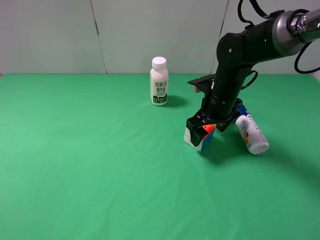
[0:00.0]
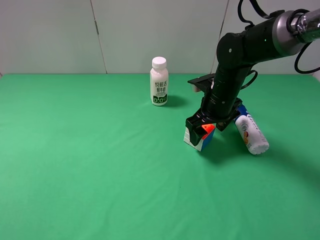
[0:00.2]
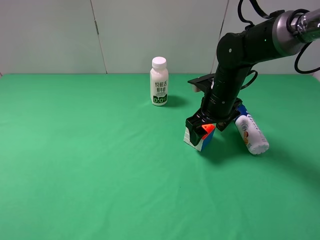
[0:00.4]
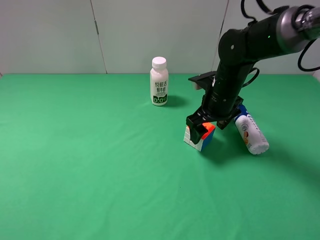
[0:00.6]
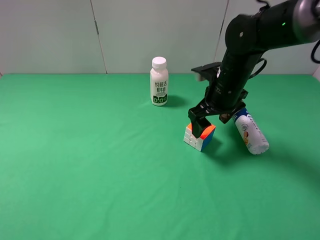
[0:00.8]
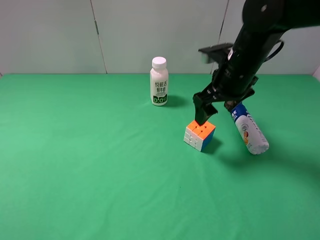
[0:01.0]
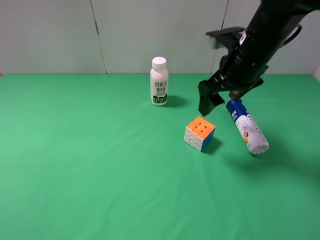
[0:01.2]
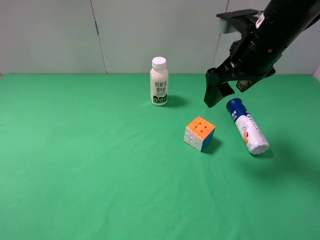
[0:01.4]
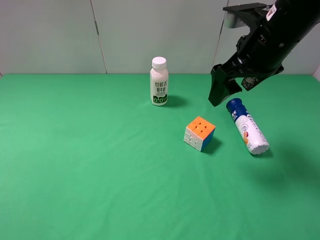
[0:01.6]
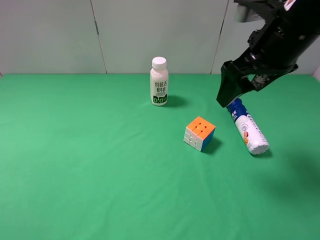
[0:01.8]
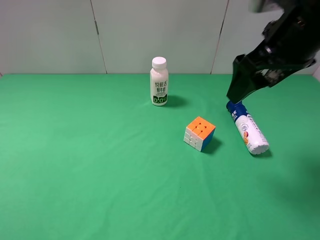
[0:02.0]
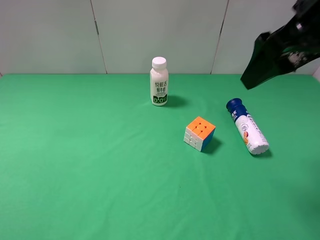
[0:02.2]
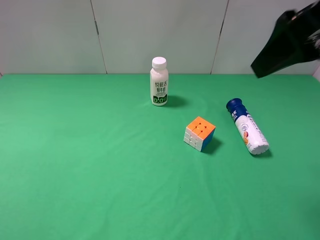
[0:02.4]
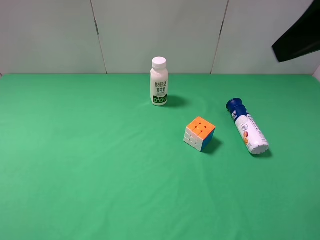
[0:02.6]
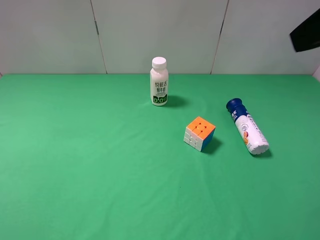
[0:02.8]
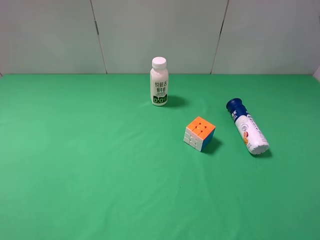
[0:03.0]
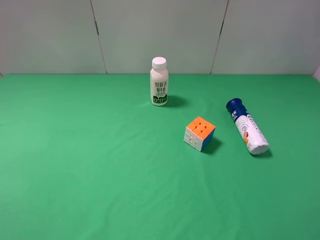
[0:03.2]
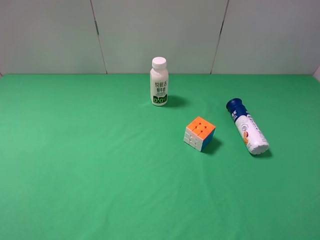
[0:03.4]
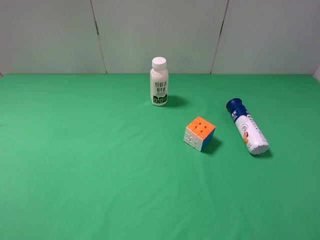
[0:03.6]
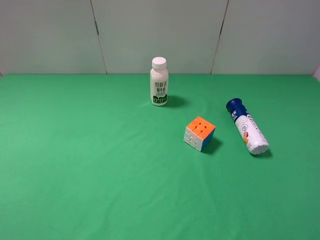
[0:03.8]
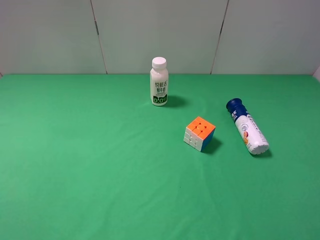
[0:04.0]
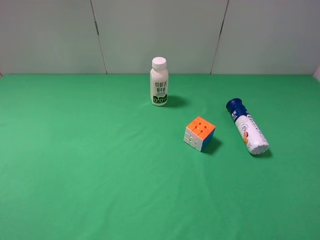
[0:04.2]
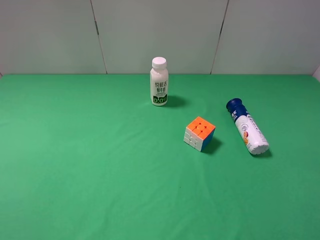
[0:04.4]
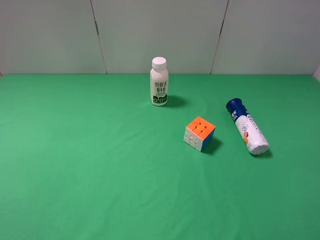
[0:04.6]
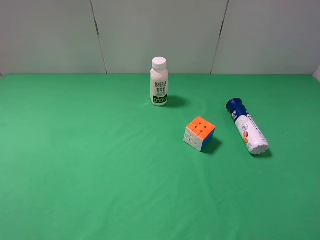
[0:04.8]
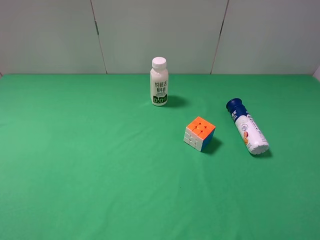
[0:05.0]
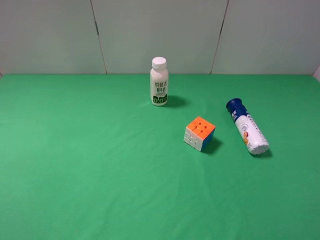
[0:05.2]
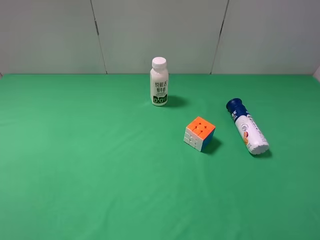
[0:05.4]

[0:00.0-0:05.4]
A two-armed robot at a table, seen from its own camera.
Task of the whole recording: use the left gripper to pick up the item and transfer it from the left gripper to the right gripper.
0:00.0 to 0:01.4: The right gripper travels upward by roughly 15 cm.
0:01.4 to 0:02.8: The right gripper goes approximately 20 cm backward, upward and to the right.
0:02.8 to 0:04.0: The right gripper shifts roughly 20 cm downward, backward and to the right.
